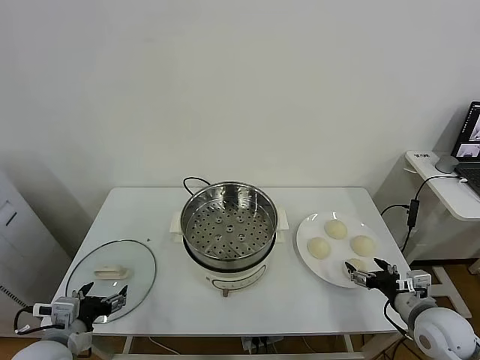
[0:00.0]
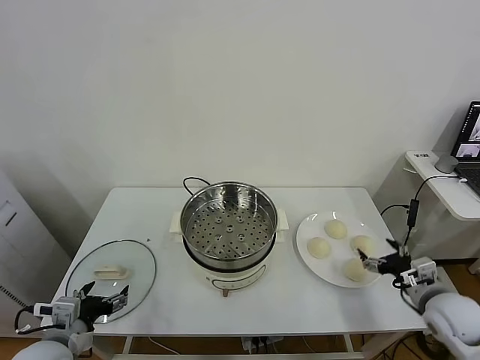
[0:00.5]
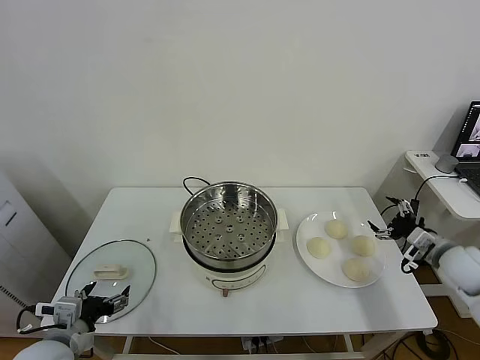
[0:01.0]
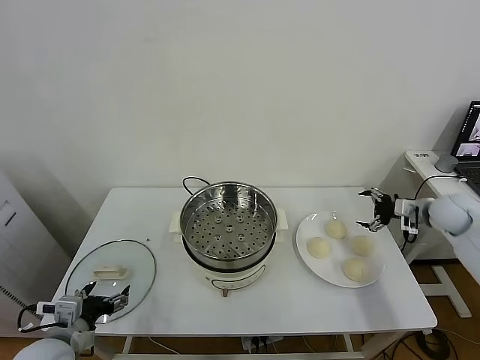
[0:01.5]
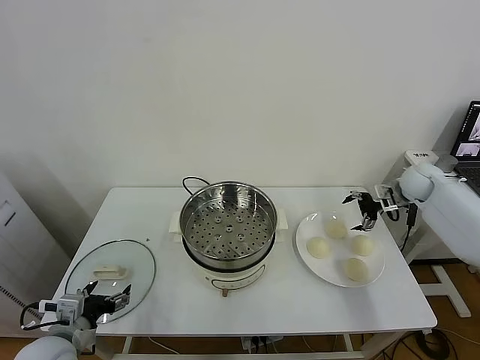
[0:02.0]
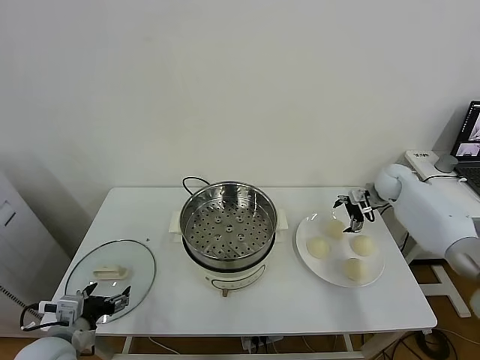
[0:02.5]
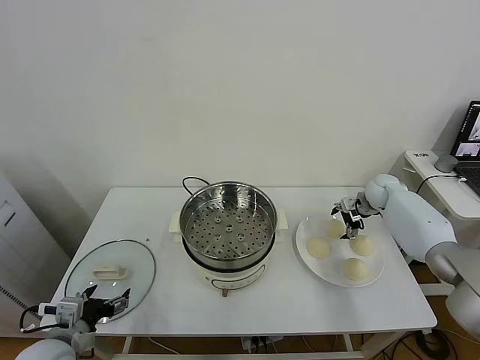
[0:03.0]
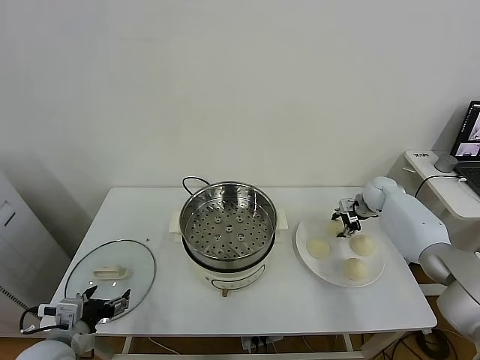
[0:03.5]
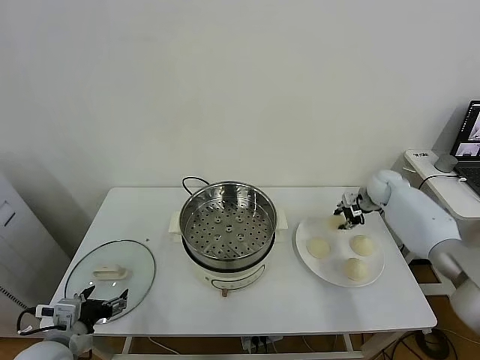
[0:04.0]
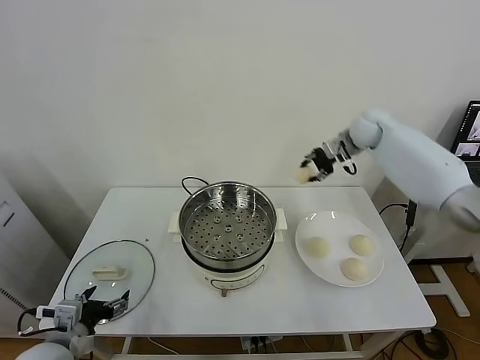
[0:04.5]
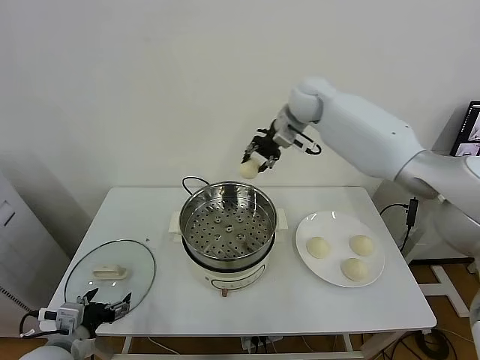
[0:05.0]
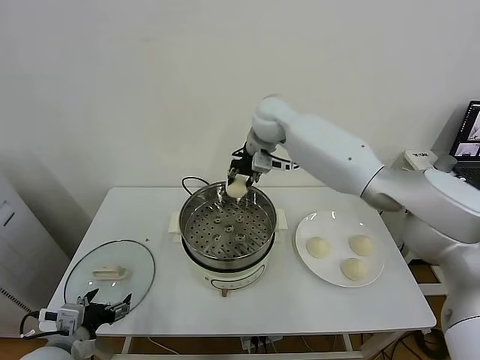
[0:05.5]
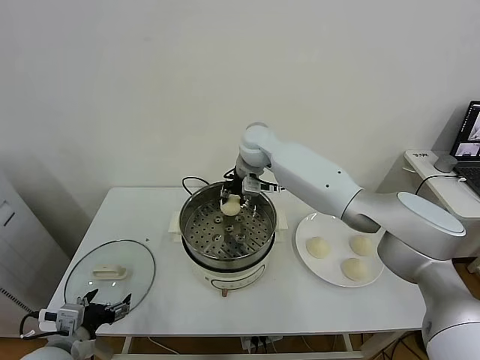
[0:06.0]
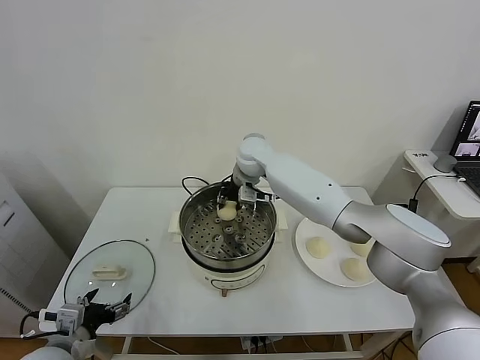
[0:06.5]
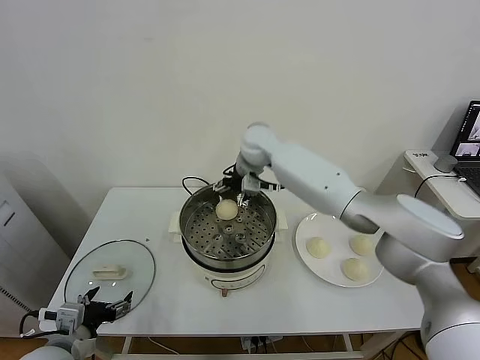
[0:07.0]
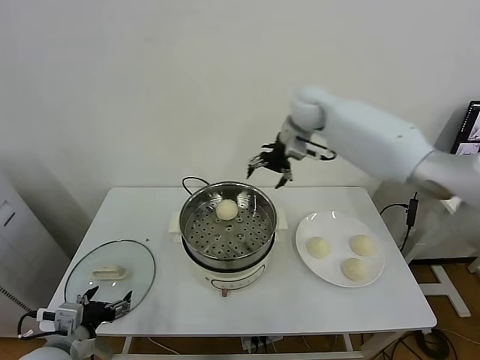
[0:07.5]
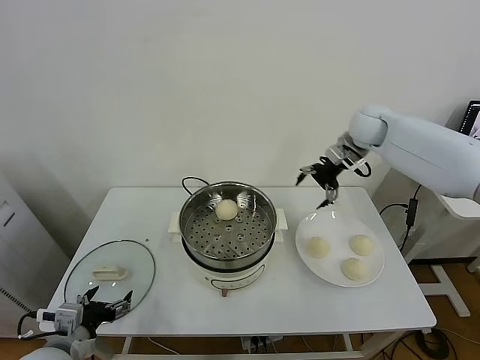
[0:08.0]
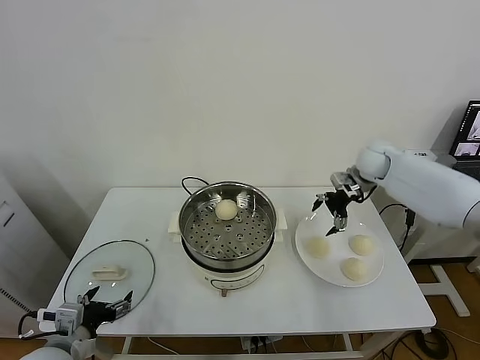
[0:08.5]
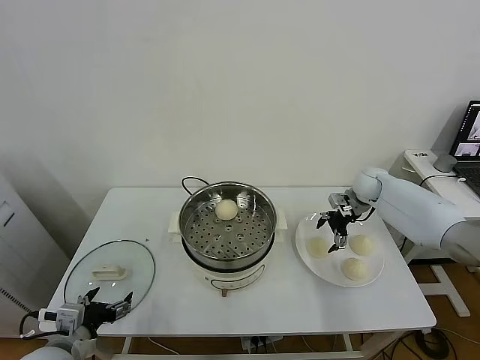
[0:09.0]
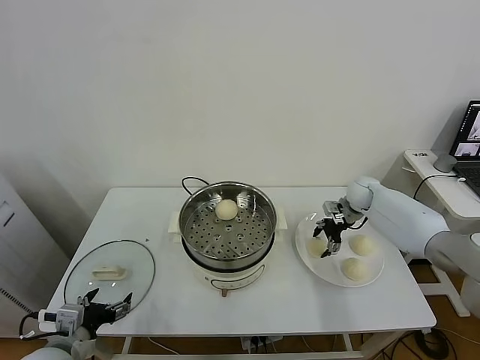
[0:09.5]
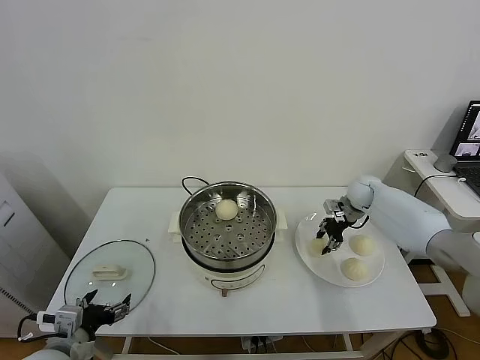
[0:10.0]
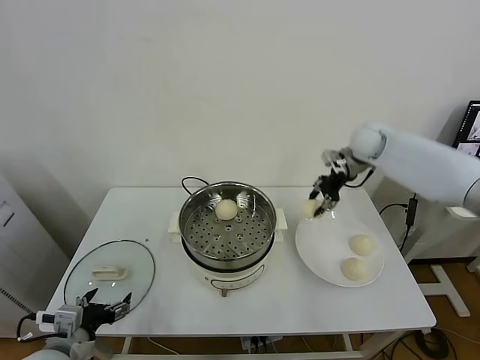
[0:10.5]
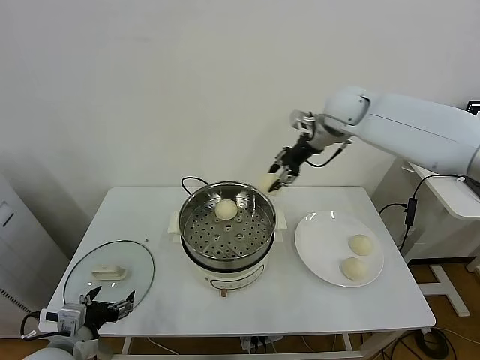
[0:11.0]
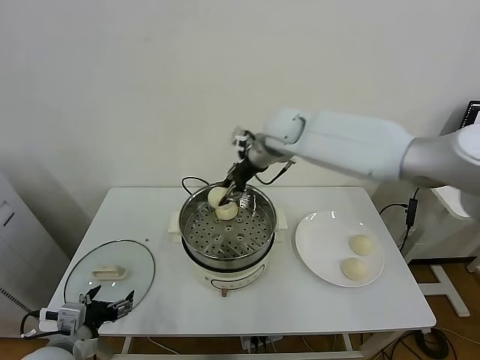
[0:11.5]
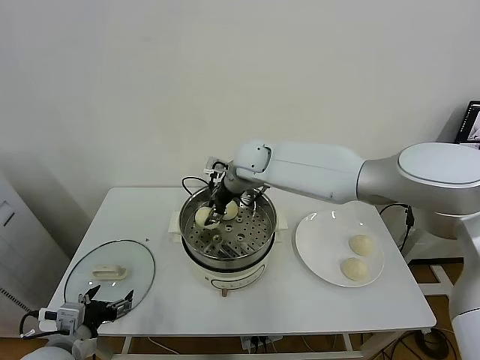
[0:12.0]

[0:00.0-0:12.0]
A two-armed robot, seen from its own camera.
Task of the whole recording: take steamed baozi put them in steamer.
Step, 0.0 to 3.0 s: Grasp the baozi in the plate with right gripper.
Step, 3.5 to 7.0 s: Place the baozi on the steamer with right gripper.
Step, 7.5 to 9.5 s: Grasp the baozi in the plate with right gripper.
2.0 to 4.0 s: The right gripper goes downward and returns, about 10 cm each way, and closes its fingers.
4.0 to 6.0 s: The right gripper is displaced to the left by roughly 35 cm.
6.0 to 8.0 s: The right gripper is displaced to the right by approximately 30 cm, and opens its fingers.
8.0 to 10.0 s: The right gripper heads downward, covering some 20 cm, and closes up.
10.0 to 12.0 s: The right gripper shifts approximately 35 cm to the left.

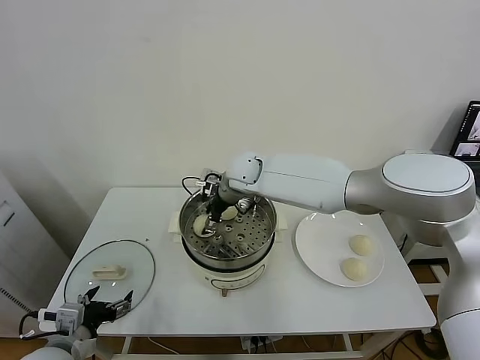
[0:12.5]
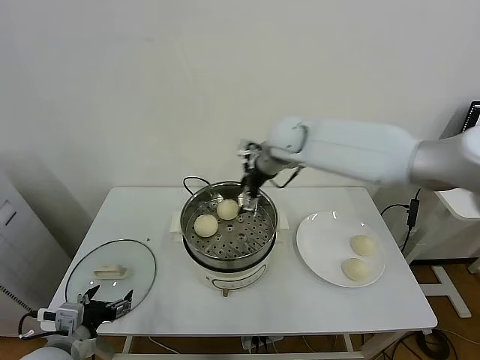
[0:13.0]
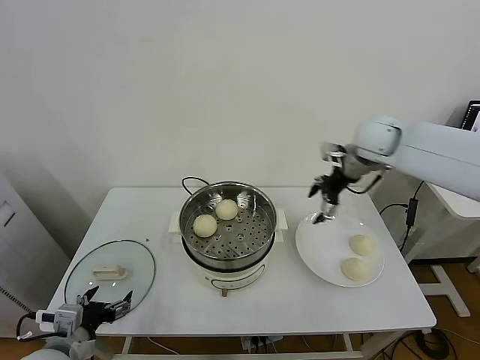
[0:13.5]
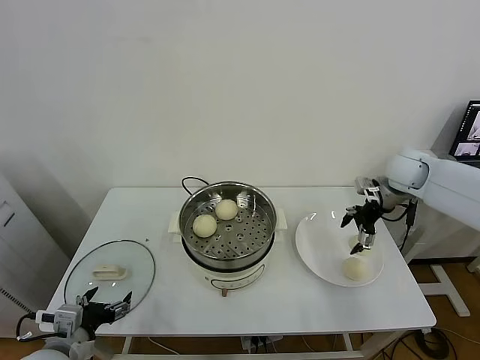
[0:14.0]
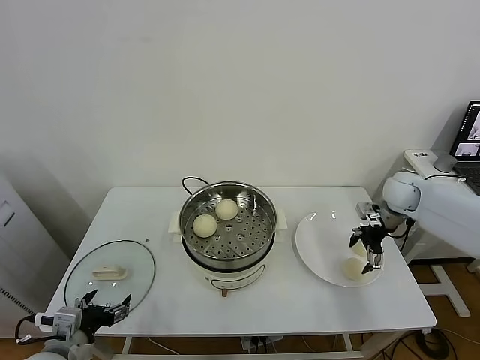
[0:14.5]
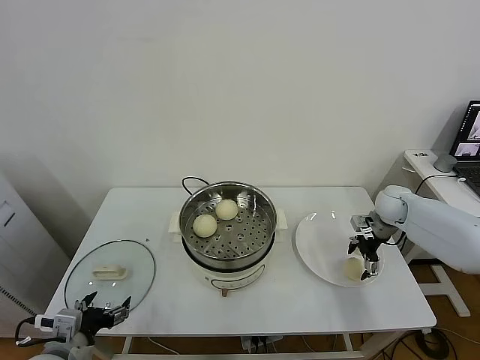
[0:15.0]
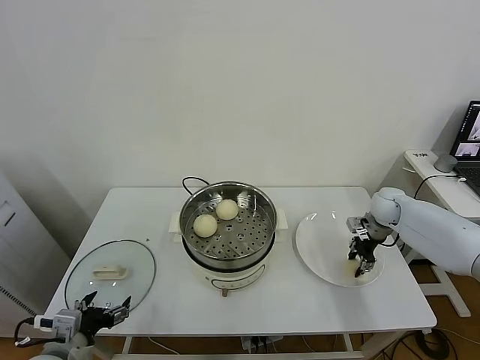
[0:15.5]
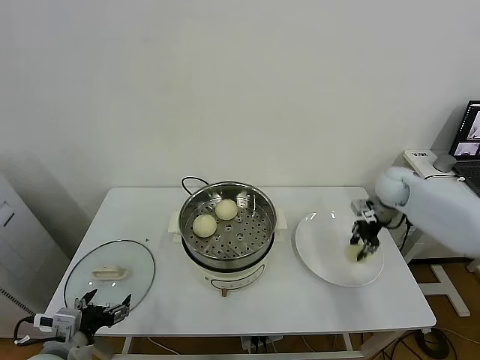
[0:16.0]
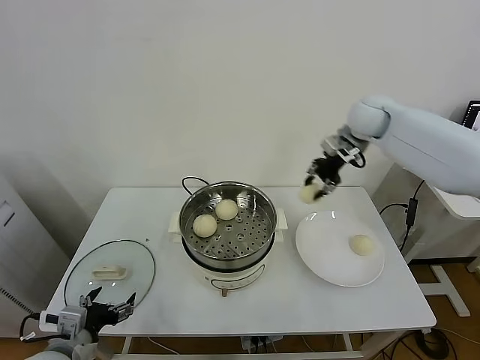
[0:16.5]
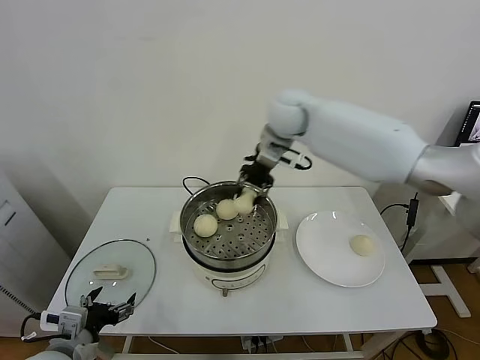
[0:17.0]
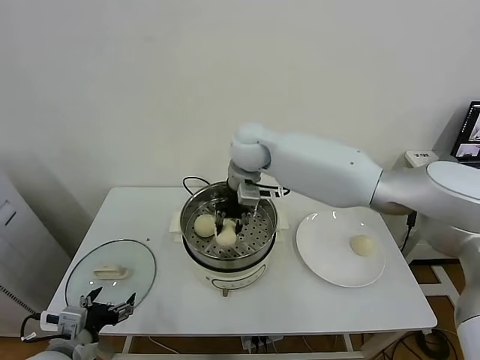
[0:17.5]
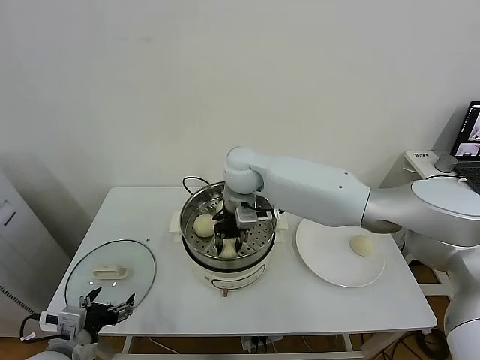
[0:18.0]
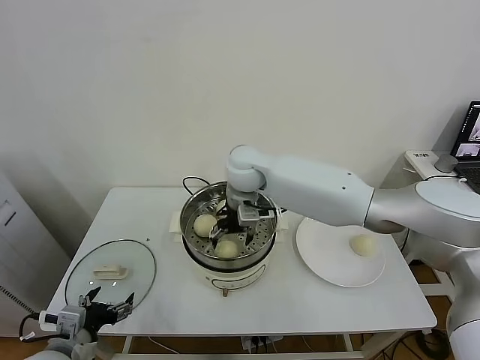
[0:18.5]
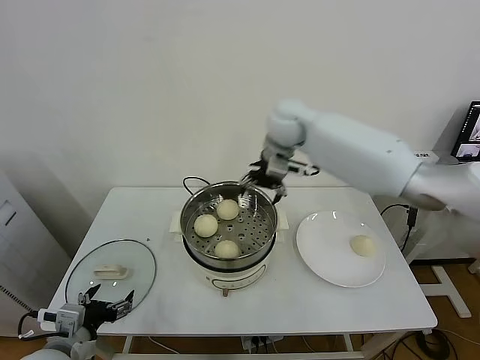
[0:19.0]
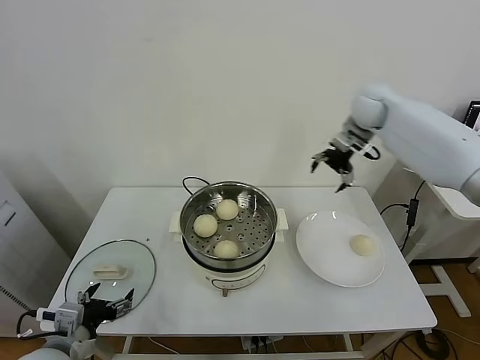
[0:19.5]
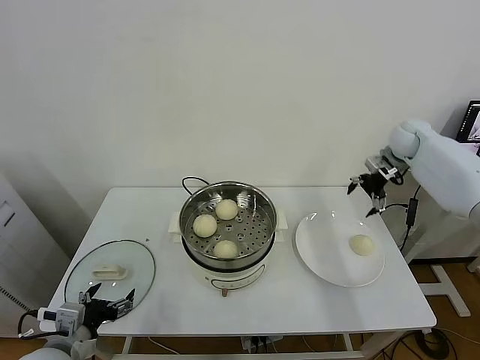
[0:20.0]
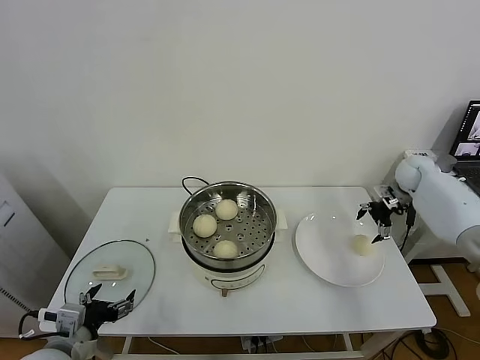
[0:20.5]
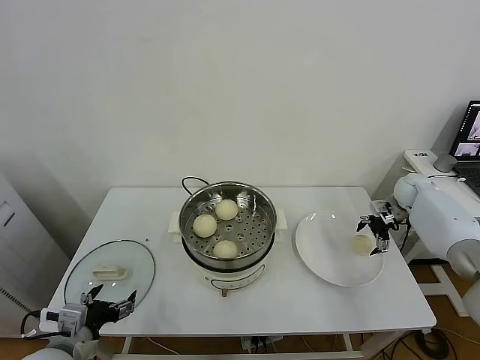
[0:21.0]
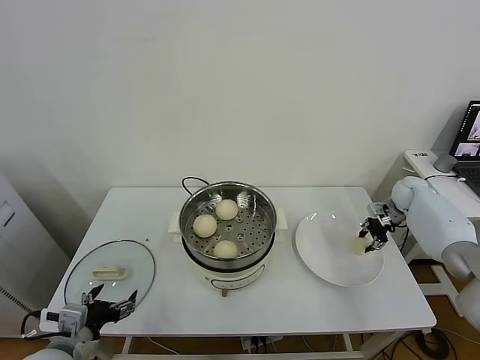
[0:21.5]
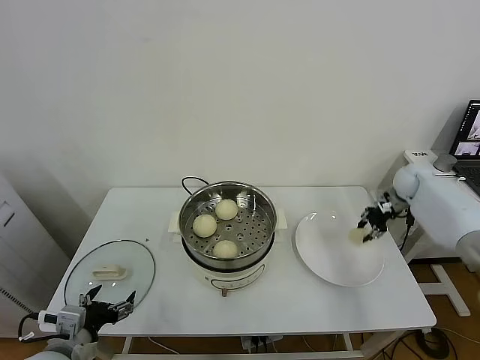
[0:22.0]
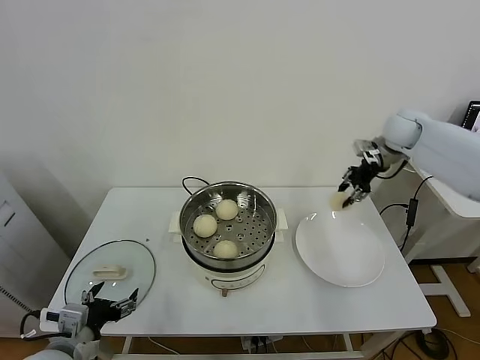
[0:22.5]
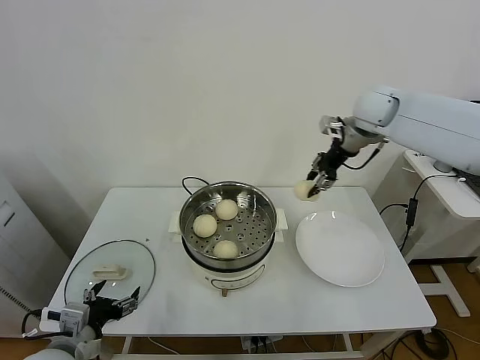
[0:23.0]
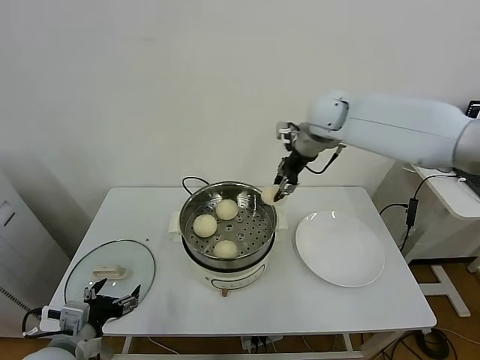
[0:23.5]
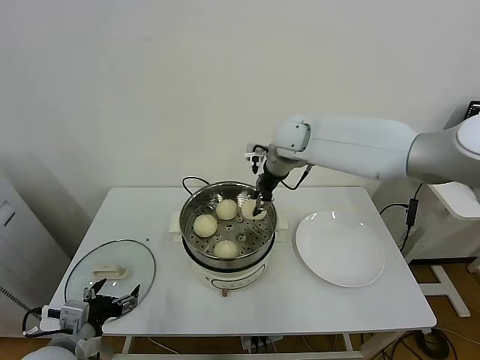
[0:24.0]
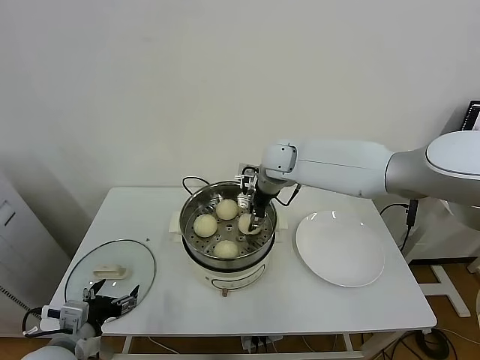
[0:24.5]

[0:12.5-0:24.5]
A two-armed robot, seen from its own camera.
Task of the whole recording: take steamed baozi put them in steamer.
Step, 13.0 to 15.0 s: Grasp the baozi in the plate with right gripper.
Step, 15.5 to 18.5 s: Place the baozi on the steamer with right gripper.
Step, 19.0 to 21.0 s: Grasp the baozi in the plate with right gripper.
12.5 to 14.5 s: The right gripper goes about 40 cm to the right.
14.5 to 16.5 s: The right gripper travels upward and to the left by some 25 cm, and closes.
16.5 to 18.5 s: The right gripper travels to the left by approximately 25 cm, and opens its fingers.
18.5 to 20.5 s: The right gripper travels to the right by about 50 cm.
20.5 to 22.5 s: The right gripper shifts approximately 20 cm upward and to the left, and closes.
22.5 to 24.5 s: The right gripper travels to the left by approximately 30 cm.

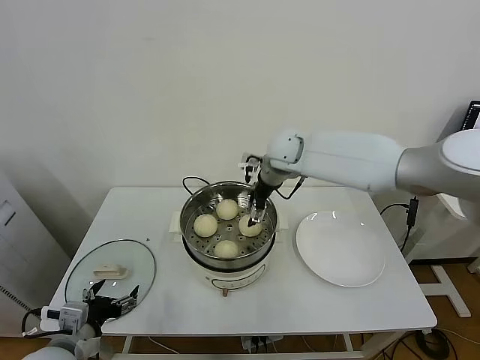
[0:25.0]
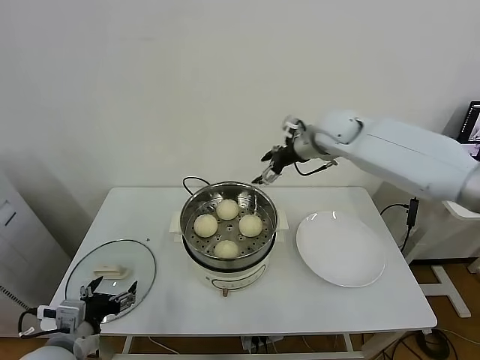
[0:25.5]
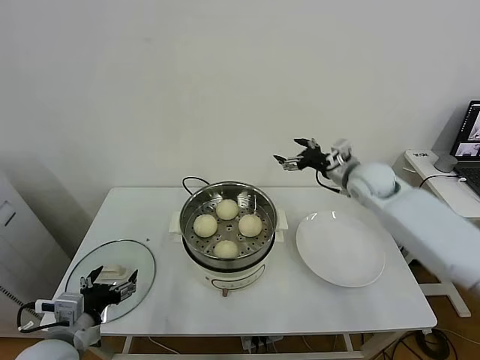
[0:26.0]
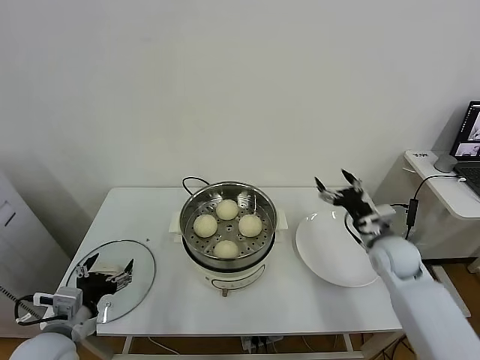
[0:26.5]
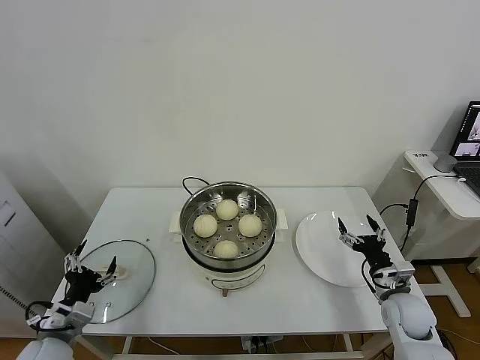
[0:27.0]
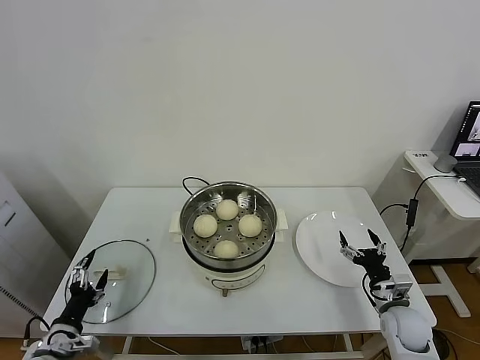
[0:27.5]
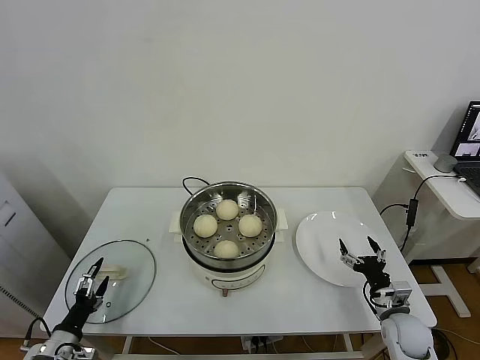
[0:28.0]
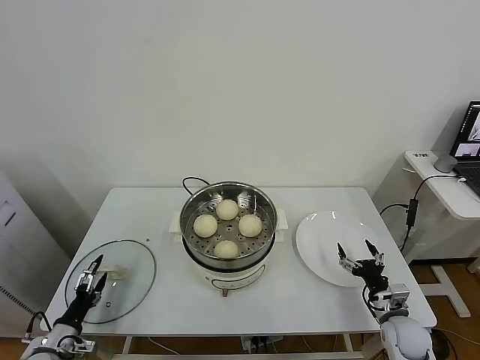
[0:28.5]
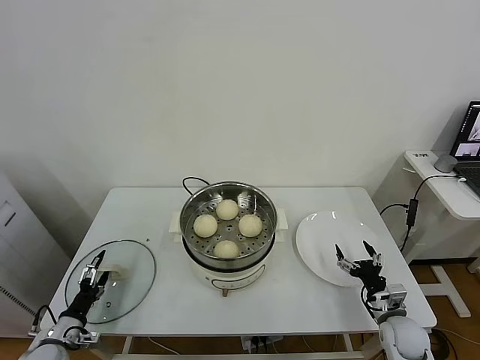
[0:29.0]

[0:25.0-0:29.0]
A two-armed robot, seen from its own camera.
Task of the whole recording: take steamed baozi put them in steamer.
25.0 to 27.0 s: The right gripper moves downward, to the right and backward, roughly 50 cm. Meanwhile the left gripper shifts by about 5 cm.
27.0 to 29.0 s: The right gripper travels downward by approximately 5 cm. Meanwhile the left gripper heads downward and to the left, covering roughly 15 cm.
